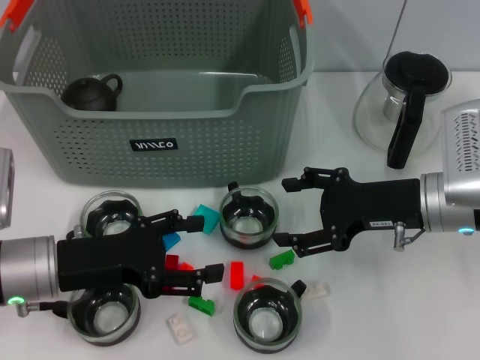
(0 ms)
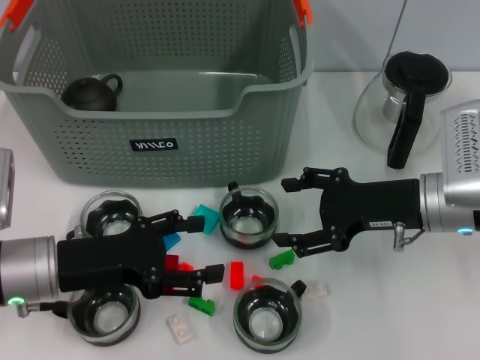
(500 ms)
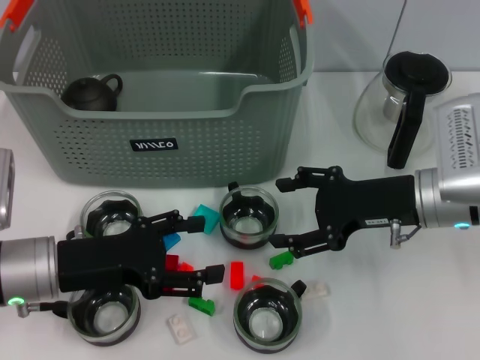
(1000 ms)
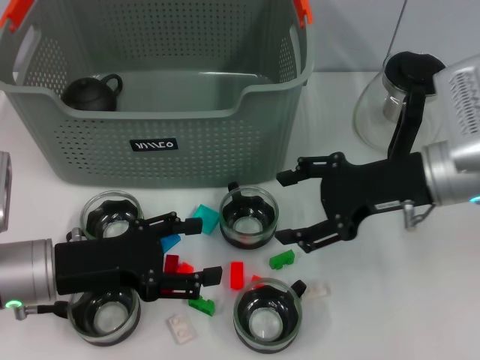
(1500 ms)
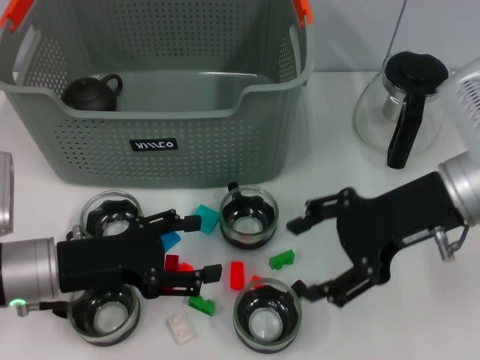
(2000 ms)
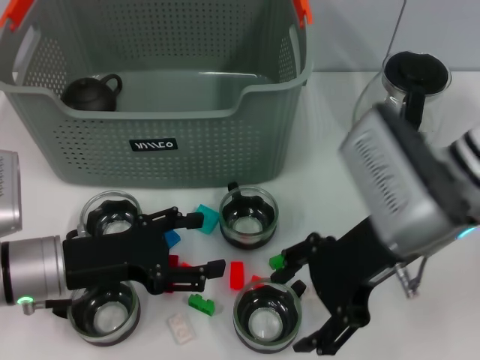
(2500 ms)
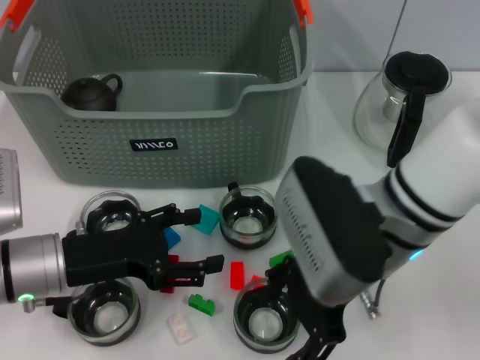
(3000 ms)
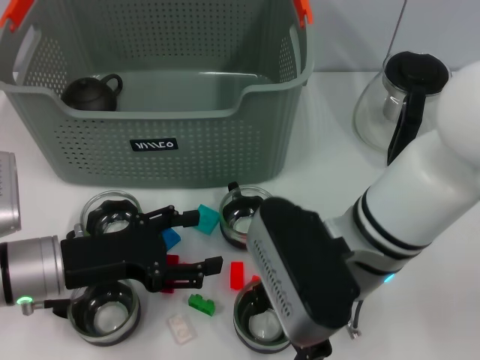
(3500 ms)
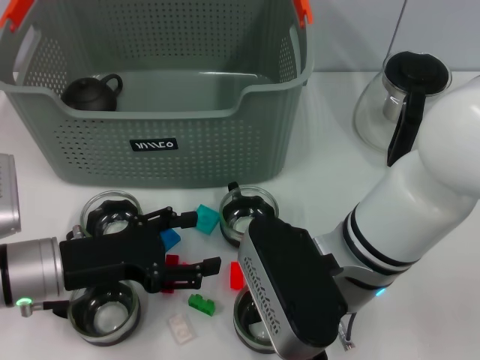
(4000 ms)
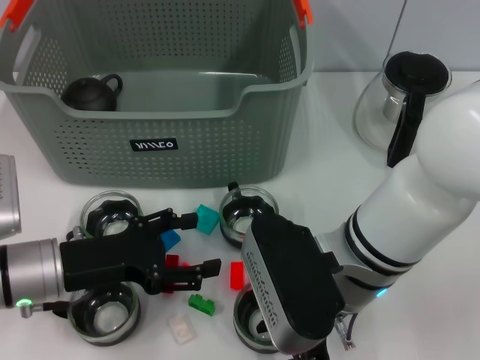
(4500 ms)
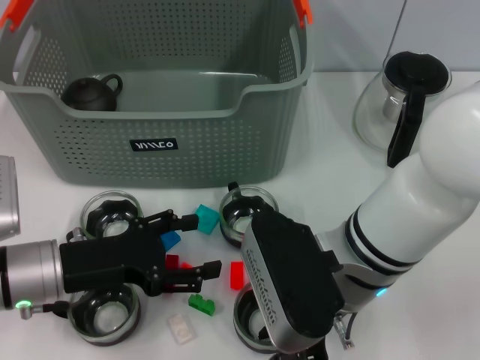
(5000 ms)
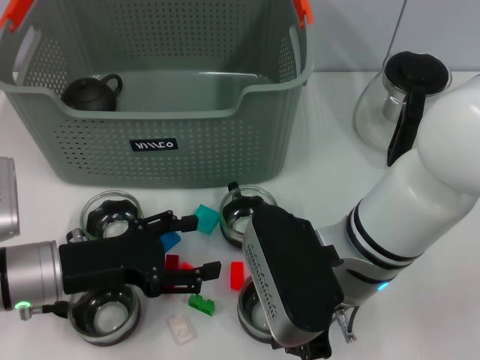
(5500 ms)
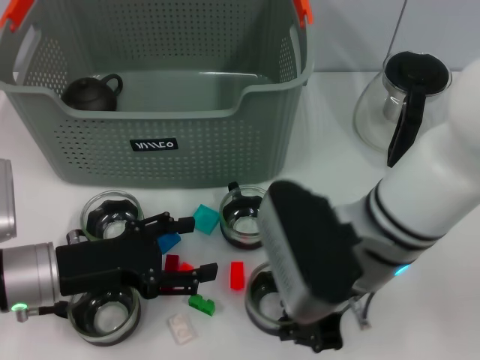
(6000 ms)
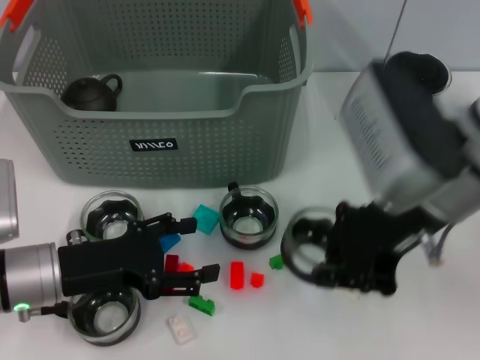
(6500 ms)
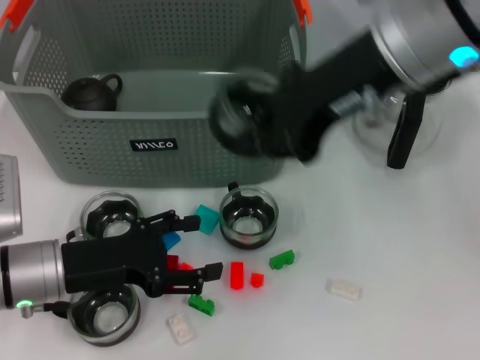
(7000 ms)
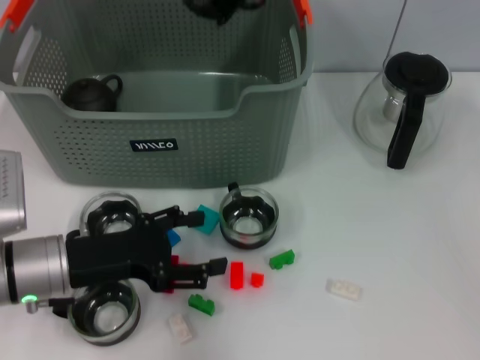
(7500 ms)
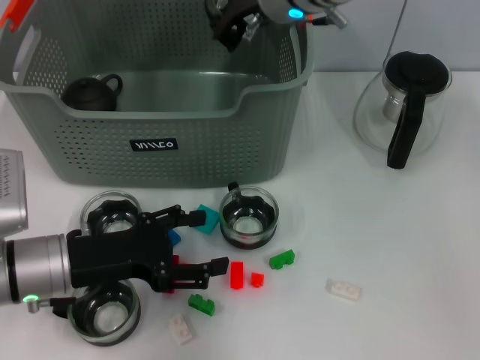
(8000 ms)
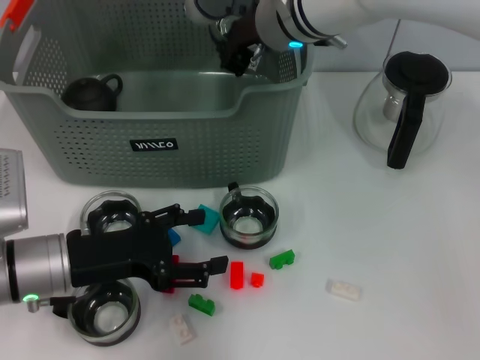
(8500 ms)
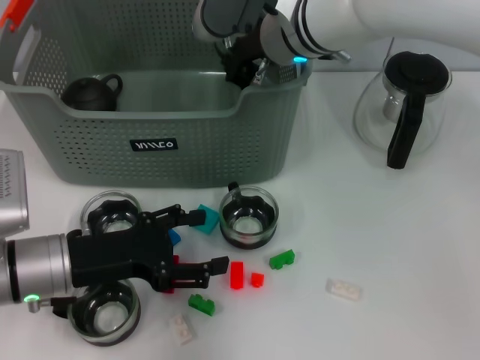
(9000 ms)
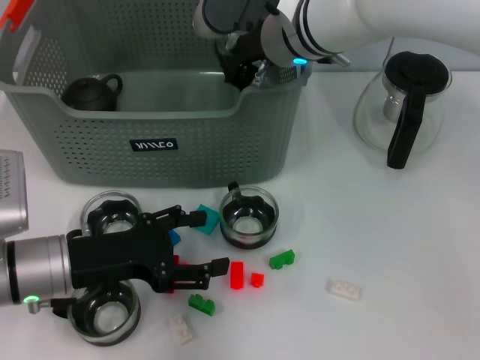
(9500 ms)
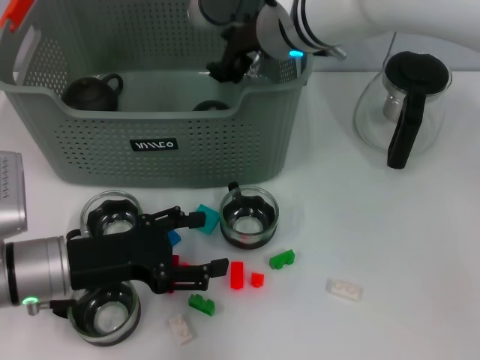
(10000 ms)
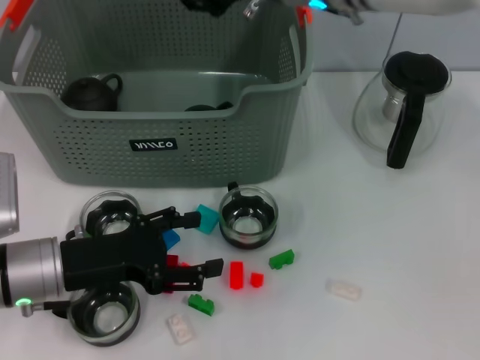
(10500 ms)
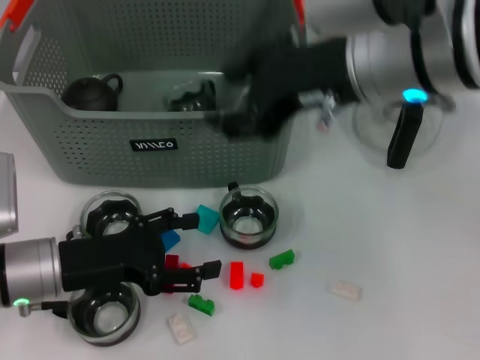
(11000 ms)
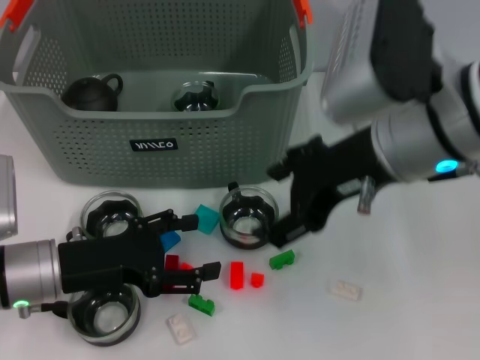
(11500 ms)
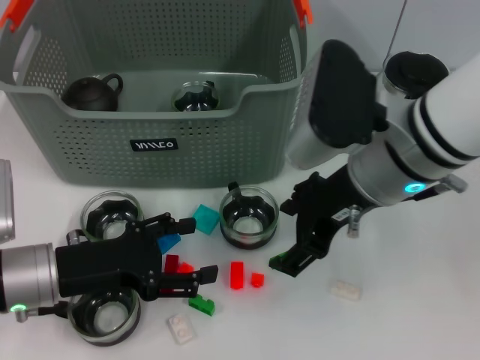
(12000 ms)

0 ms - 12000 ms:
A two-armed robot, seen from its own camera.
Task of the whole recording: pick up the teacup on the table and place it into the storage bin, pick up the block on the table and place it into the storage bin.
Step, 0 ms - 5500 ms: Grasp the cup with right gripper.
Step, 6000 ms - 10000 ms: Place the cup in the storage box with right gripper.
0 ms - 2000 ms: The right gripper travels upward by roughly 5 cm.
2000 ms - 4000 ms: The right gripper moves to the left and backward, roughly 15 cm.
4000 ms - 6000 ms: The right gripper closes.
6000 ms - 8000 ms: The right gripper is displaced forward and upward by about 20 cm.
8000 ms - 10000 ms: The right gripper opens up.
10000 ms - 12000 ms: The right gripper is displaced backward and to the right by about 15 cm, and opens.

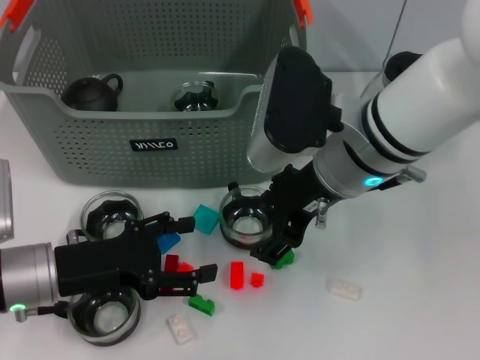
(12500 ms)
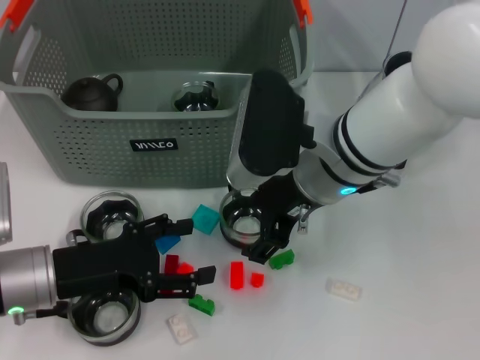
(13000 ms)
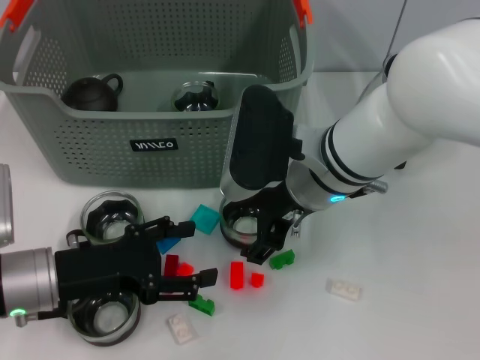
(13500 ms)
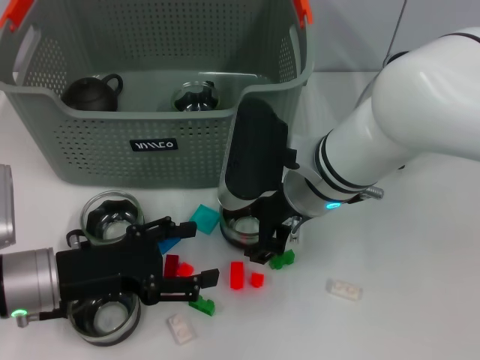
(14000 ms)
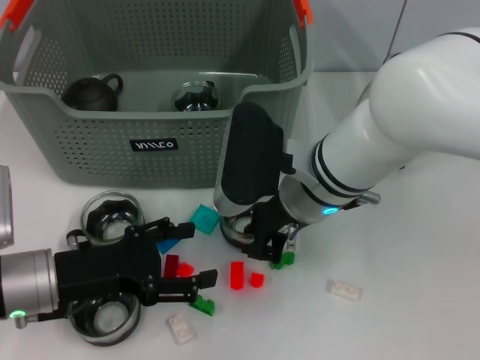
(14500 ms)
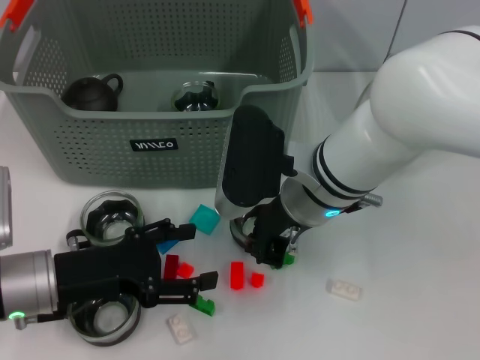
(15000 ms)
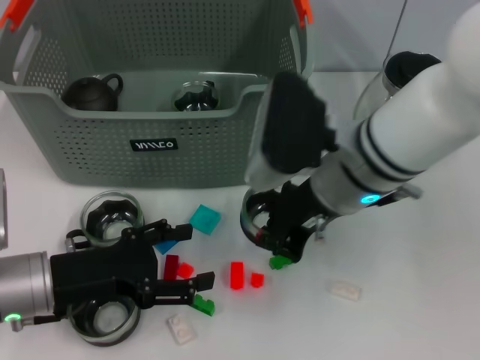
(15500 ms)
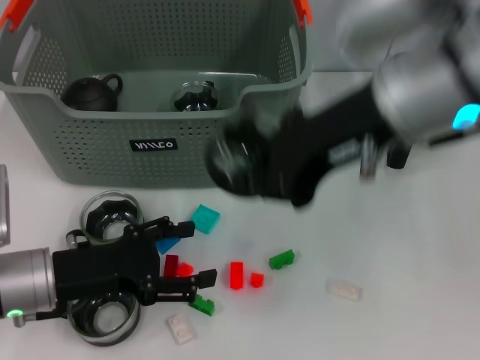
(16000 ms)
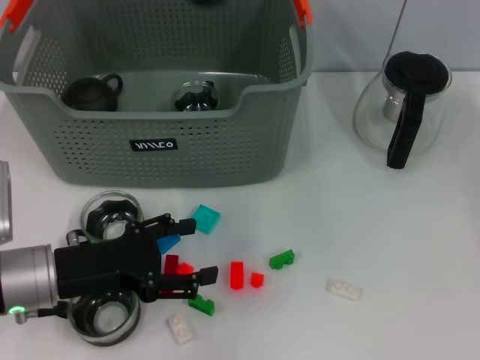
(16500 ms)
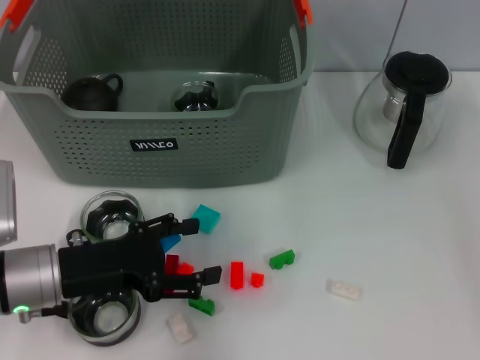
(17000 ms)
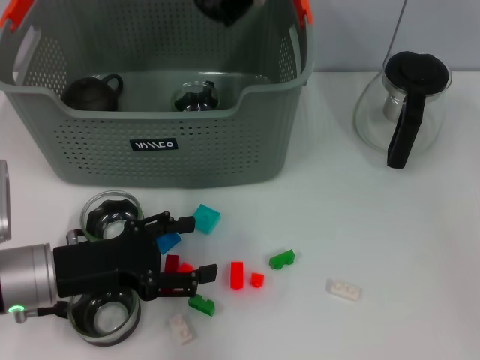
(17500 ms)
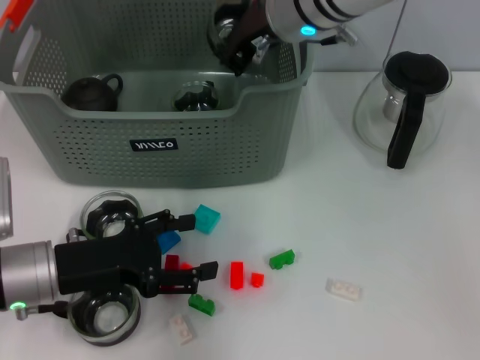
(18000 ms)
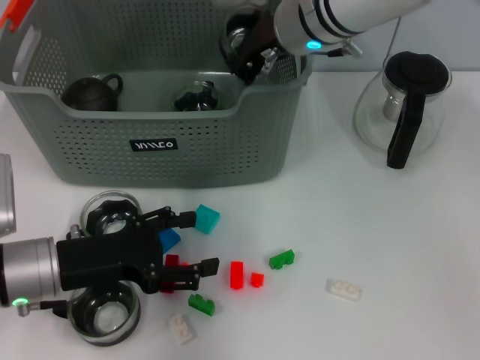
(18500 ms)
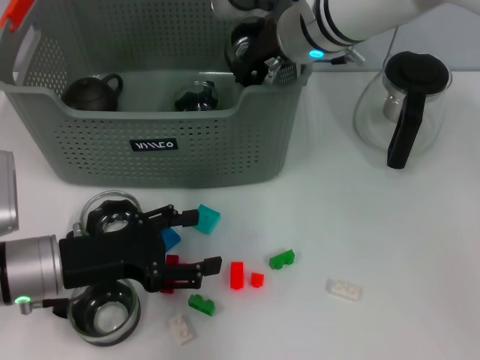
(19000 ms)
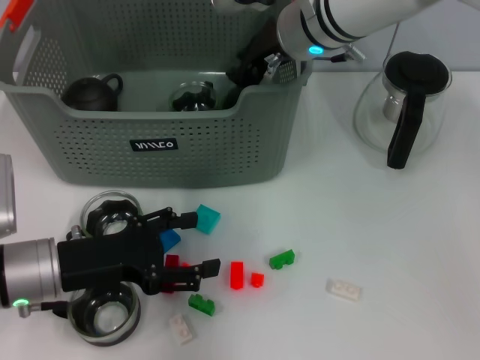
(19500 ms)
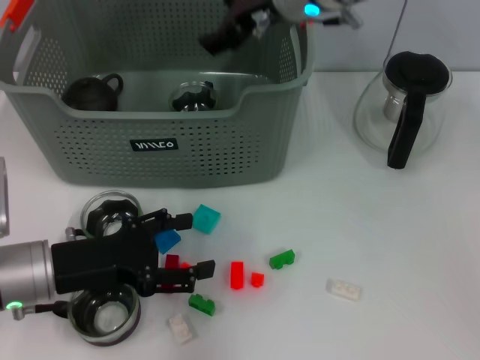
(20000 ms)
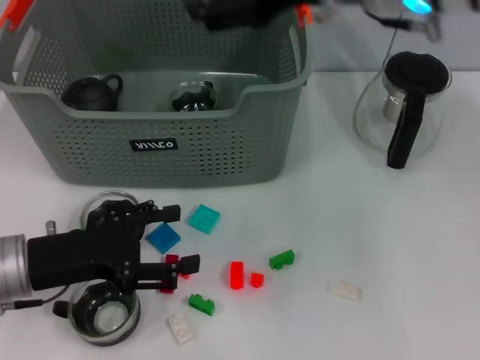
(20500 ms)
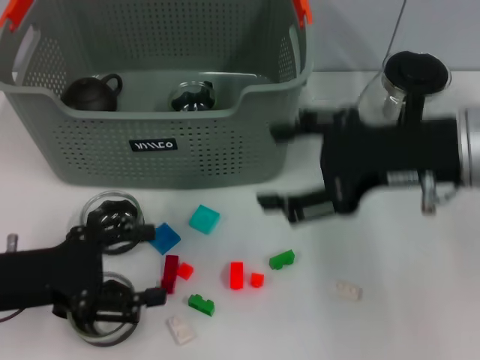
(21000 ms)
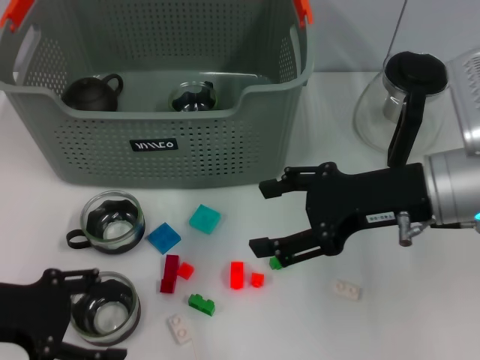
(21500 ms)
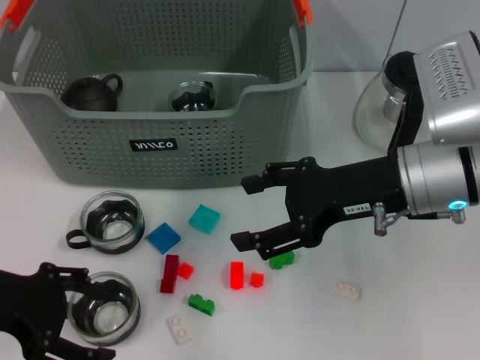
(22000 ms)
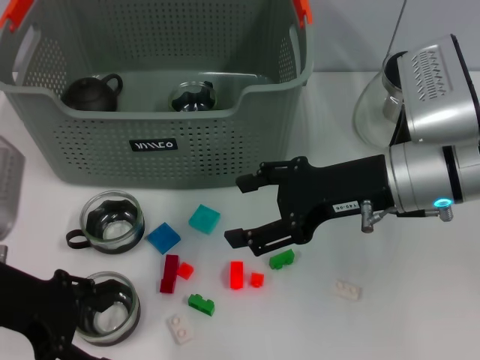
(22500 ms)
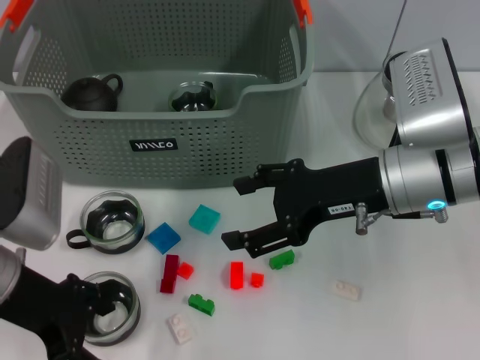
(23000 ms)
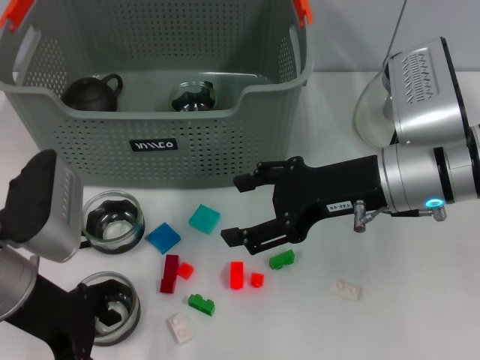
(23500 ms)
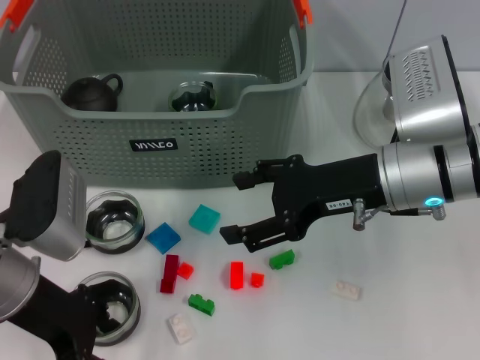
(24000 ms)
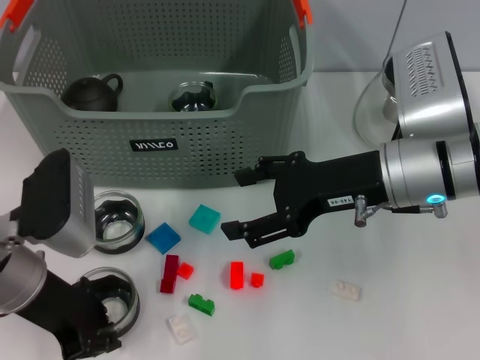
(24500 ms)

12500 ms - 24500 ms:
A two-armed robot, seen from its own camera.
Task of the whole recording: pick up the teacup on the table and place it into the storage bin, pick up the block on the table and place it into the storage bin.
Step, 12500 ms - 14500 ms: Grasp the cup with right gripper.
Step, 15000 ms - 19500 ms: Place the cup in the storage box with right gripper.
12500 ms - 14500 ms: The right gripper ends up roughly 5 cm from where it was, and closes its fingers.
14500 ms - 16500 ms: The right gripper goes approximately 25 cm upward, and closes up.
16500 ms - 18500 ms: The right gripper shifts approximately 15 cm downward and forward.
18500 ms - 20500 ms: The right gripper moves backward, upward and to the right, some 15 cm, and opens.
20500 ms - 22500 ms: The left gripper is displaced upward by about 5 cm, while the right gripper is displaced downward by about 15 cm.
22500 ms - 24500 ms: The left gripper shifts by roughly 5 cm, and closes its fingers.

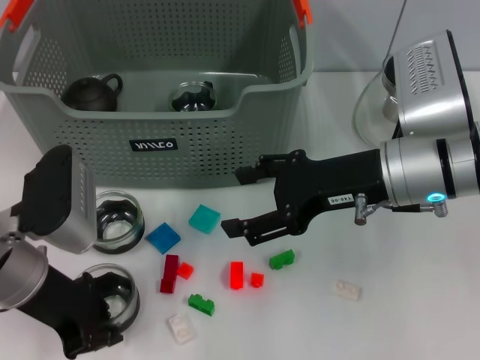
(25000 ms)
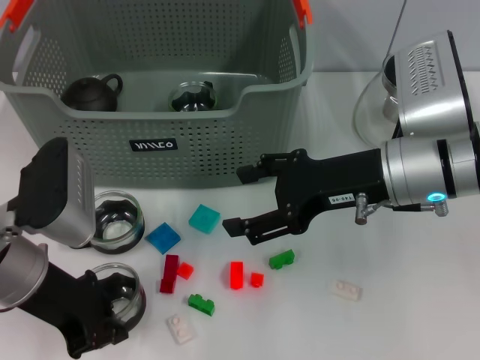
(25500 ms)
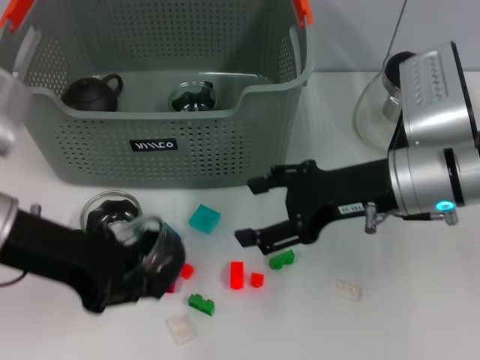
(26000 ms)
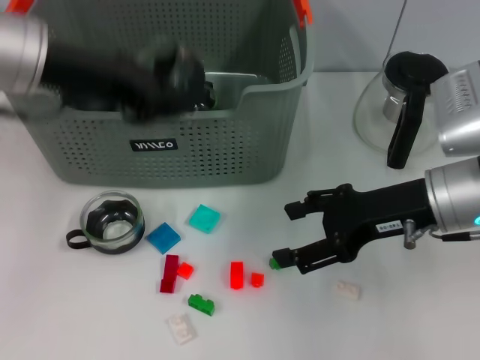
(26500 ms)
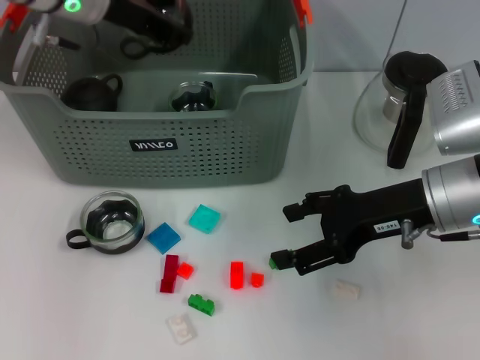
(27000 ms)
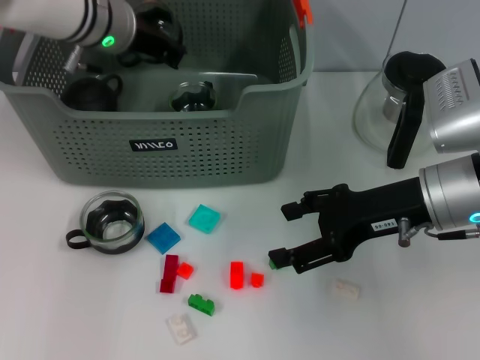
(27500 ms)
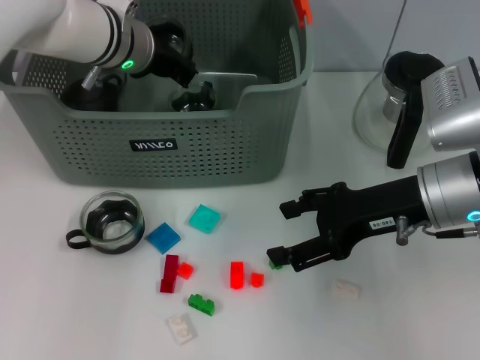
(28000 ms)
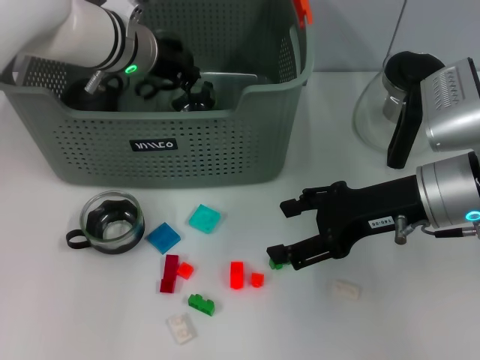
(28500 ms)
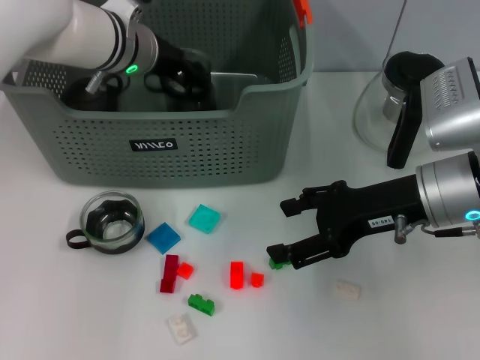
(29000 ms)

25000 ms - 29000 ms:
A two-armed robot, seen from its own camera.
Task of the whole recording: pick up the teacup on the table and place it into the storage bin, pick up the block on the table and place it into the storage bin.
25000 ms - 27000 ms: The left gripper is displaced forward and upward by roughly 20 cm.
27000 ms - 29000 ms: The left gripper moves downward, some 5 cm, and opens.
